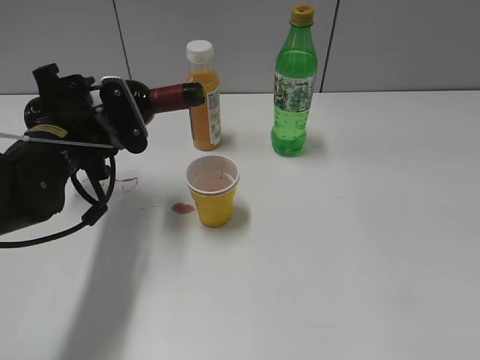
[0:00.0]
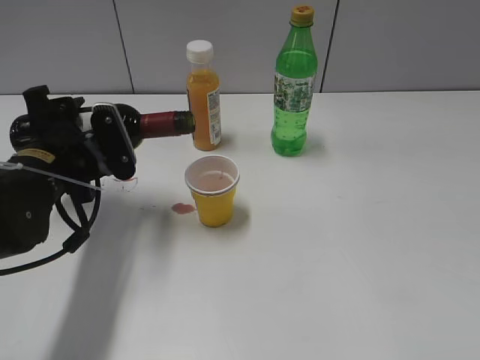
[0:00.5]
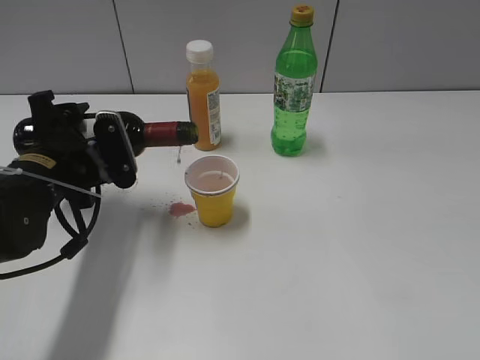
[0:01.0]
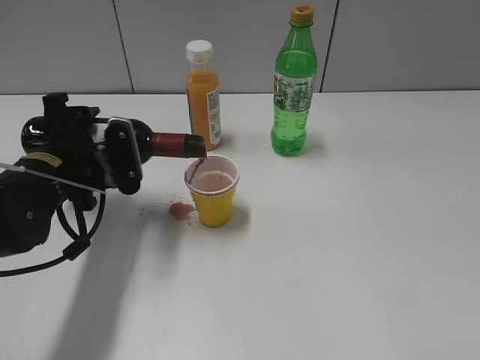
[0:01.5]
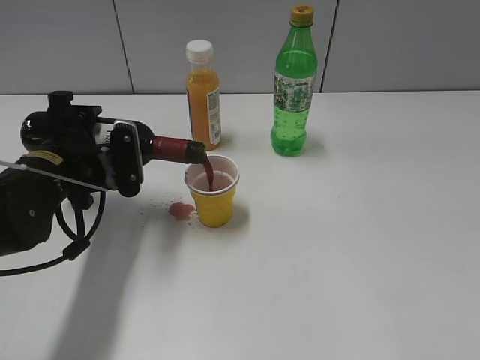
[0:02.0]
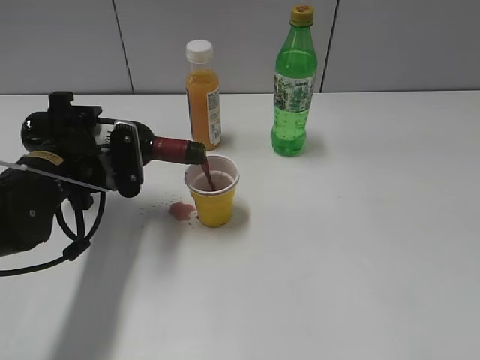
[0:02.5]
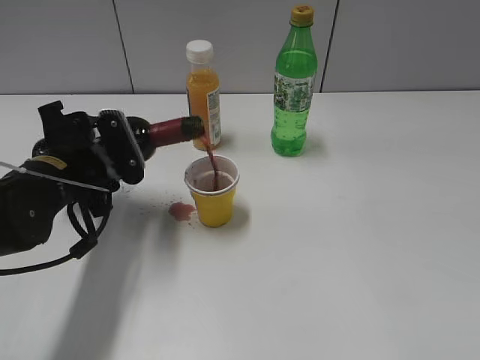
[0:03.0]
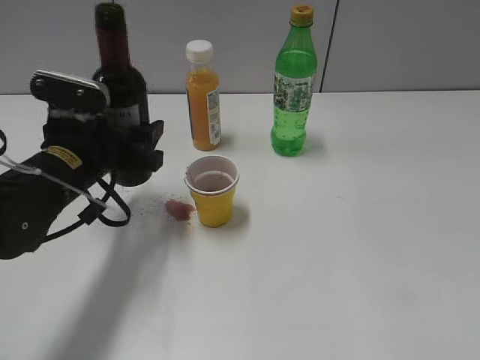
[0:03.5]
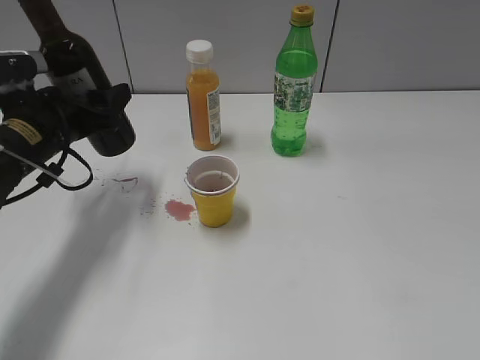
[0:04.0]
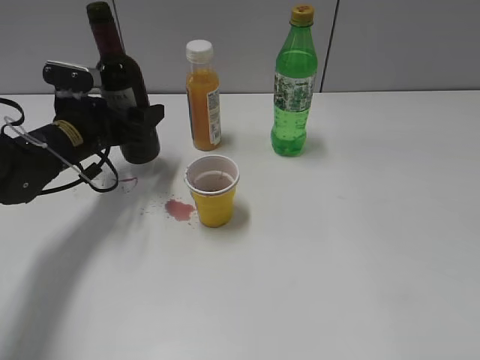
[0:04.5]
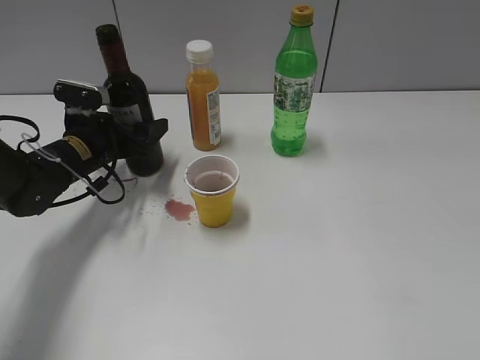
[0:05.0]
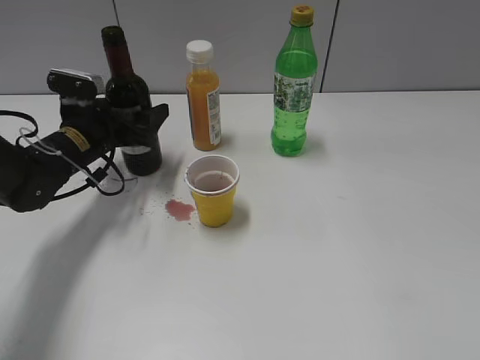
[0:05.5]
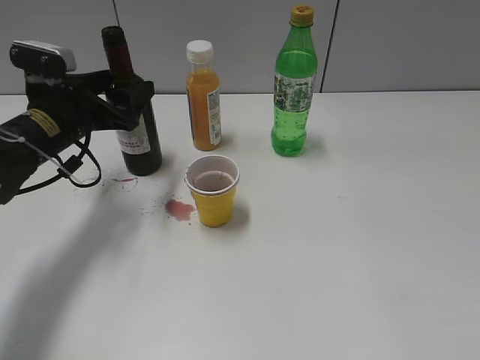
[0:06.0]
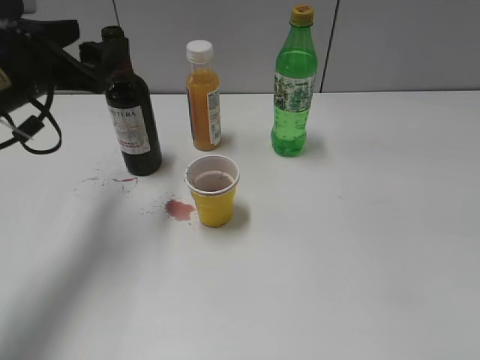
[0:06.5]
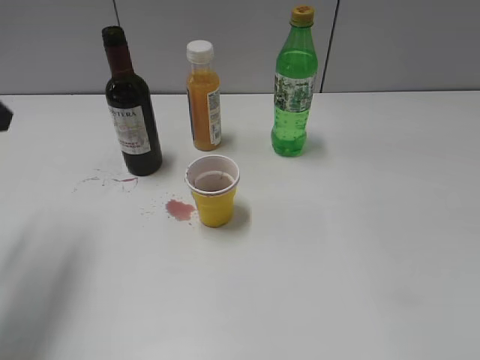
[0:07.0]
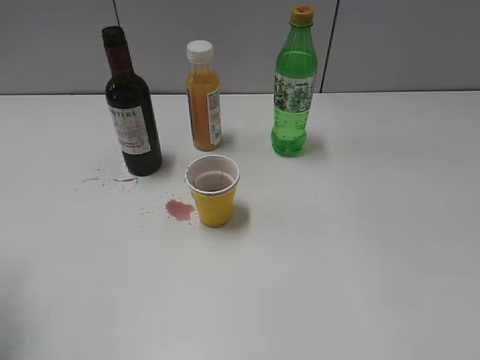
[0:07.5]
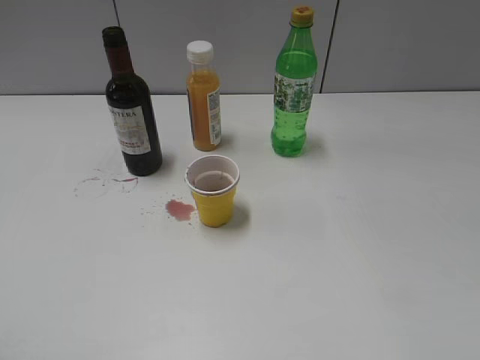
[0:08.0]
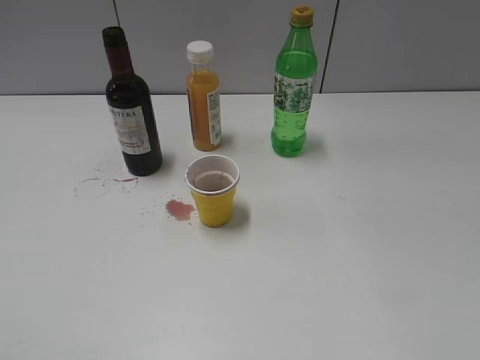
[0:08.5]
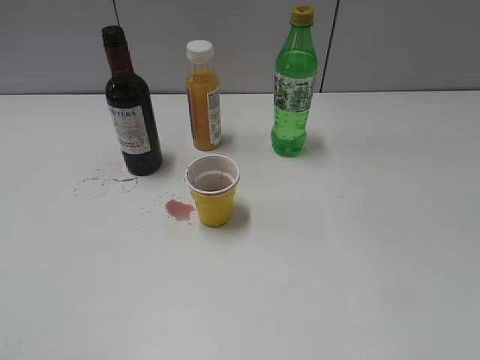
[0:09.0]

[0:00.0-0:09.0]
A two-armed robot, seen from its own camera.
Step, 0:00.0 to 0:03.0: Pour the red wine from bottle to cup with left gripper.
Step, 0:03.5 to 0:06.0: Place the red wine bottle on the table with left gripper.
0:00.0 to 0:02.0: The grippers make only small movements.
0:02.0 to 0:04.5: The left gripper is displaced forward by approximately 10 cm.
0:04.5 to 0:07.0: The left gripper is displaced upward and backward by approximately 20 cm.
0:07.0 to 0:09.0: The left gripper is displaced backward by approximately 25 cm.

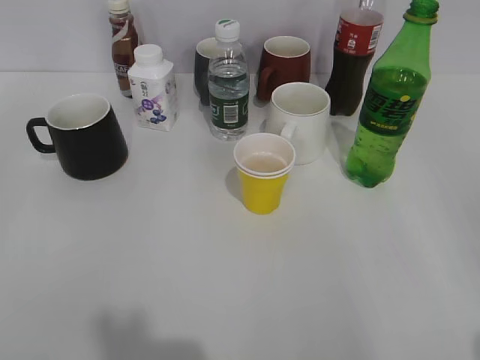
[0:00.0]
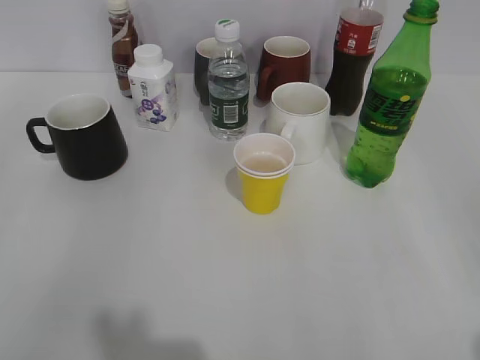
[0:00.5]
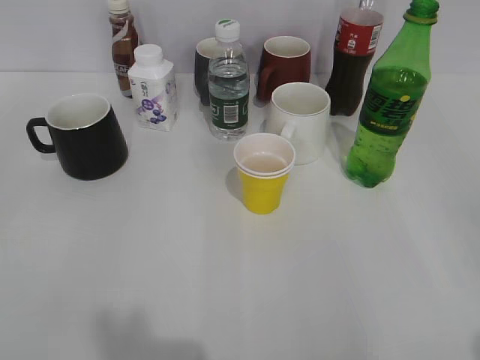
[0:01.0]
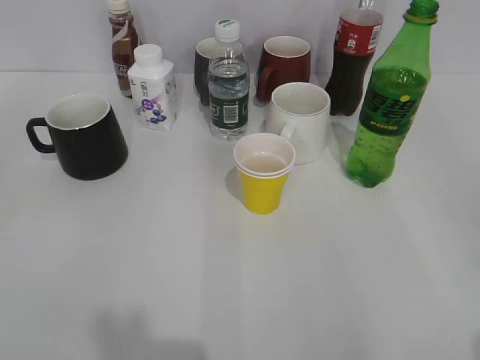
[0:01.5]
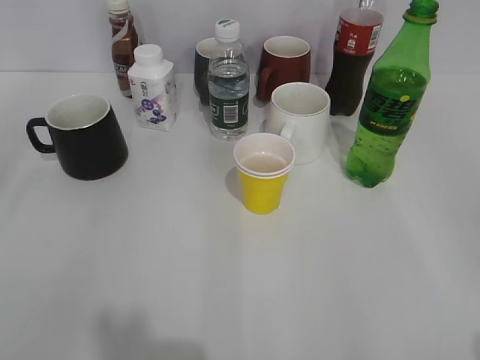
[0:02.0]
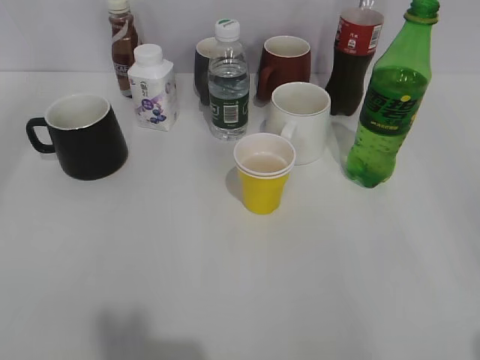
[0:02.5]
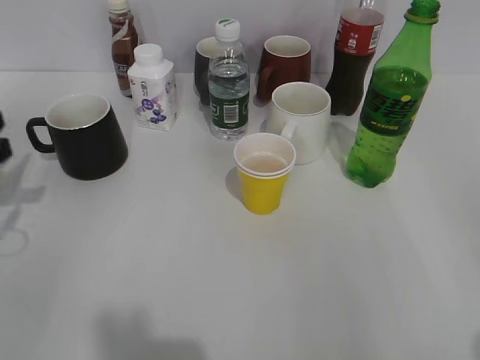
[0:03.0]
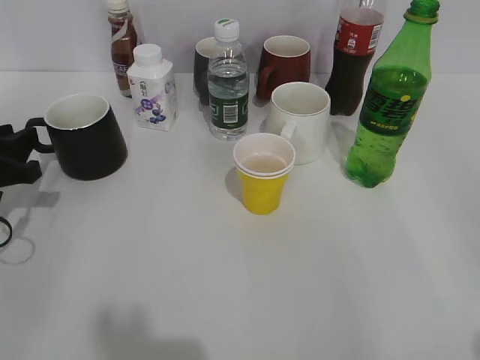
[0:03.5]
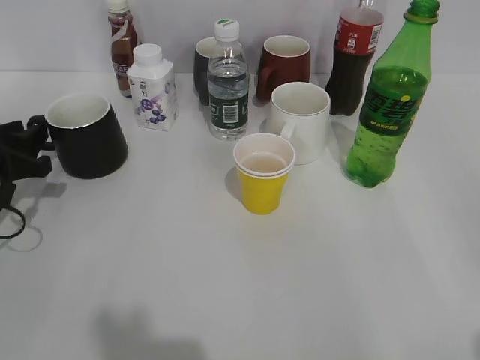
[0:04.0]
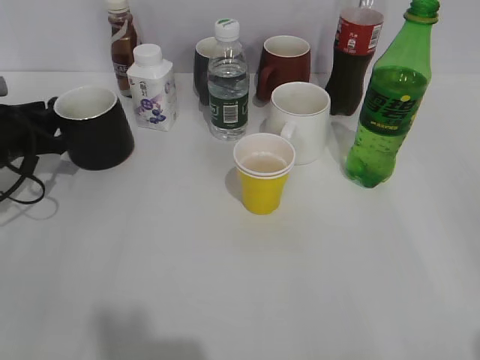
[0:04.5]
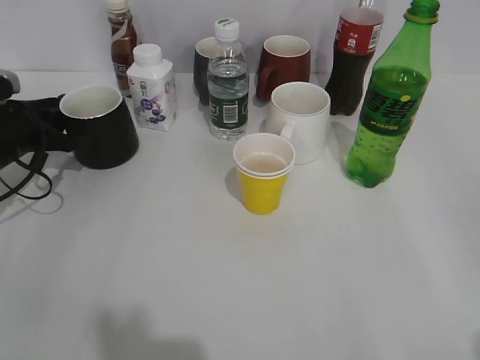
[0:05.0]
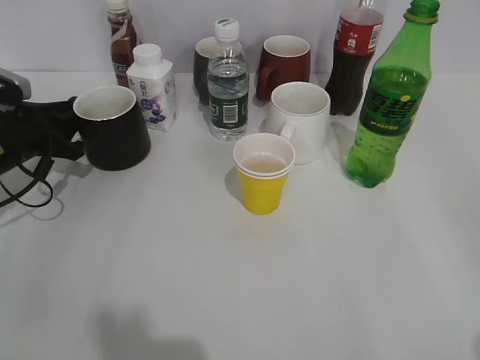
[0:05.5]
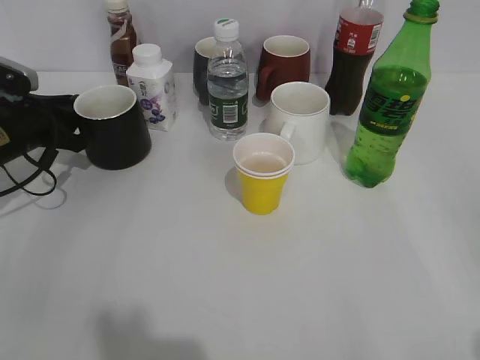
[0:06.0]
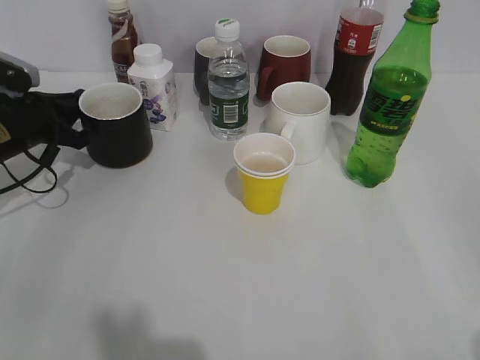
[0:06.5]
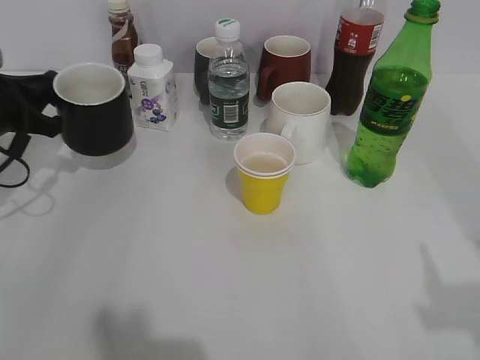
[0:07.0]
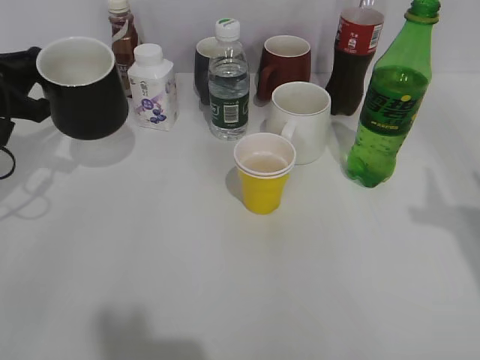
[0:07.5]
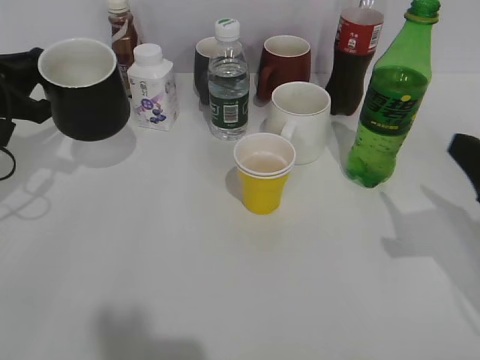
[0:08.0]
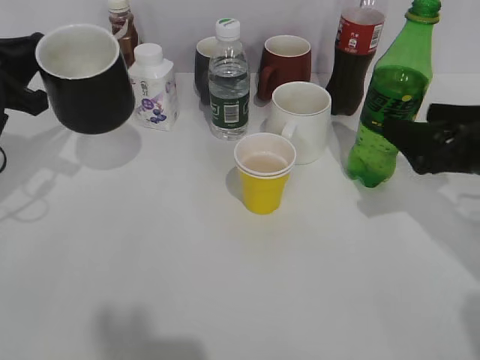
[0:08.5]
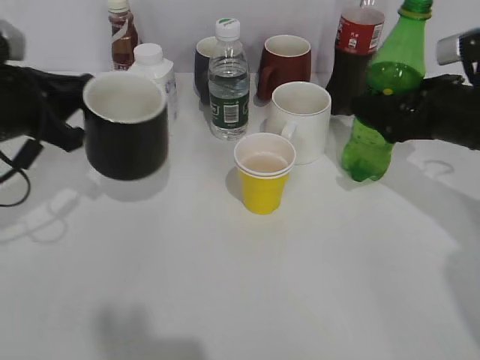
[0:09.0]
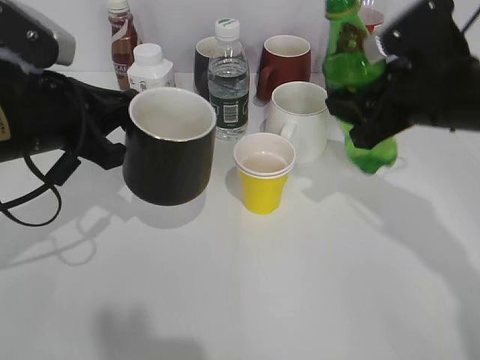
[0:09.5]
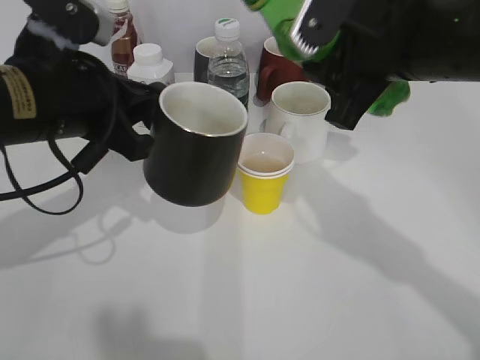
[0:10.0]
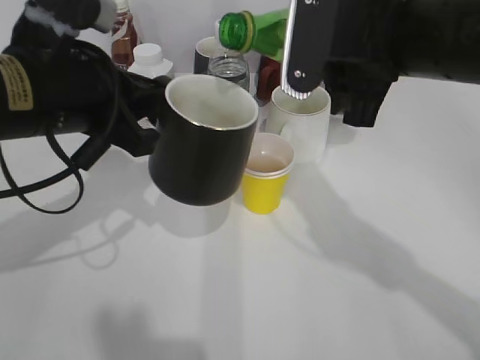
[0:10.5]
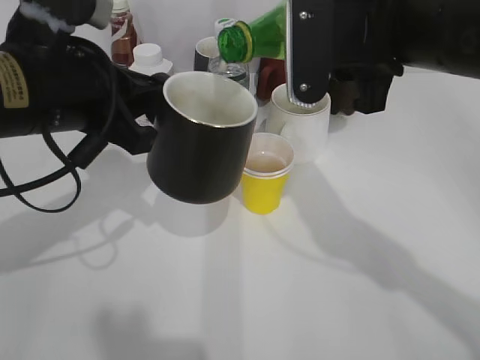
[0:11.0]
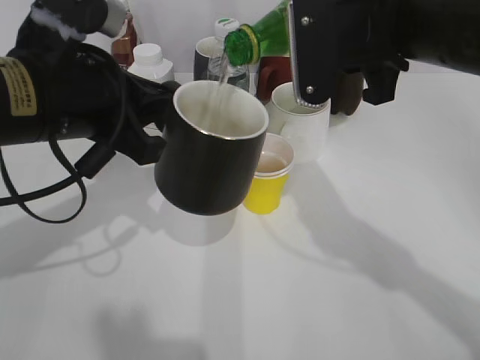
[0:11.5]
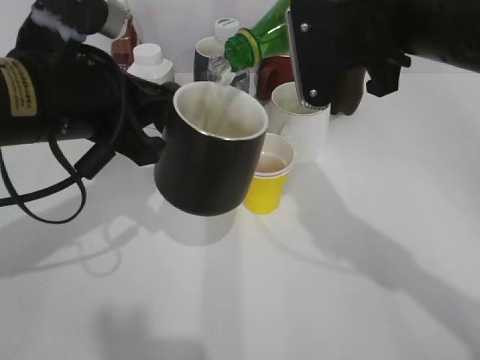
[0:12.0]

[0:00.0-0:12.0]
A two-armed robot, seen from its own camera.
Step, 0:02.0 to 0:04.5: Grasp the black cup with left gripper.
Step, 0:05.0 to 0:07.5: Lift the black cup with left gripper.
Step, 0:08.0 to 0:09.0: Grasp the bottle with sprite with right gripper.
0:02.0 to 0:04.0: The left gripper goes roughly 35 cm forward and downward.
0:04.0 to 0:06.0: The left gripper travels forward by some 10 cm.
0:06.0 to 0:08.0: The right gripper is displaced forward and downward by roughly 20 cm. The left gripper travels upward and backward by roughly 10 cm, and closes its fingers.
0:08.0 to 0:10.0: The right gripper travels to the left, forward and upward by some 20 cm, and opens, then closes once more; the left gripper is displaced to the right and backward by approximately 15 cm.

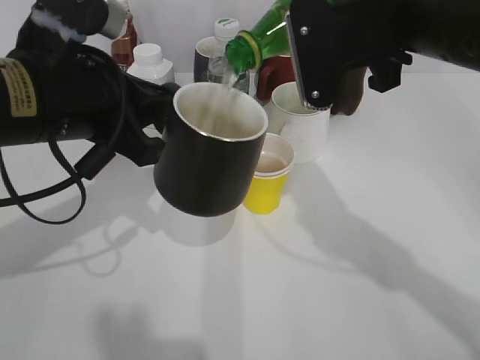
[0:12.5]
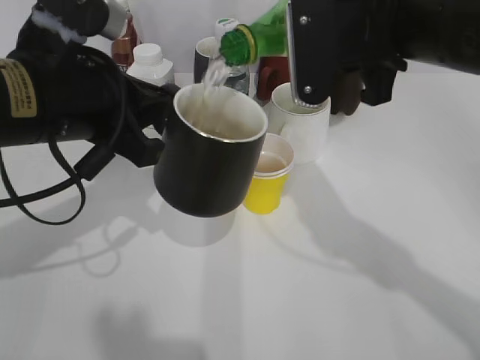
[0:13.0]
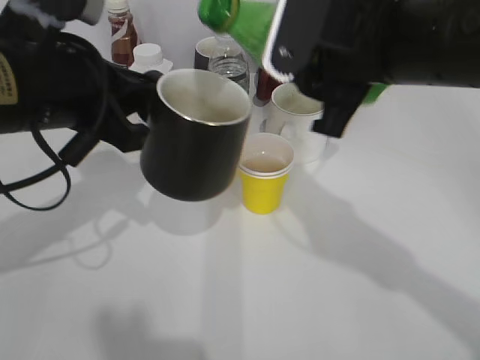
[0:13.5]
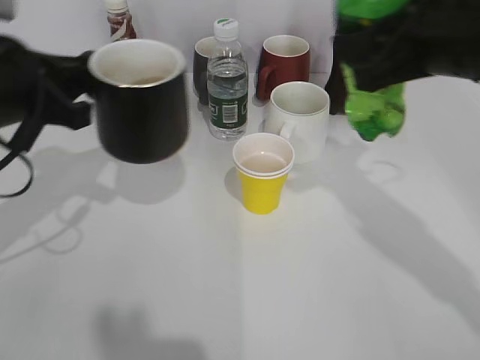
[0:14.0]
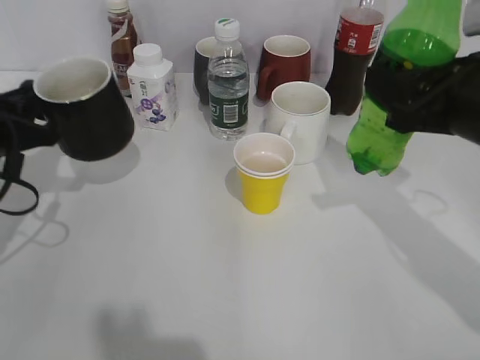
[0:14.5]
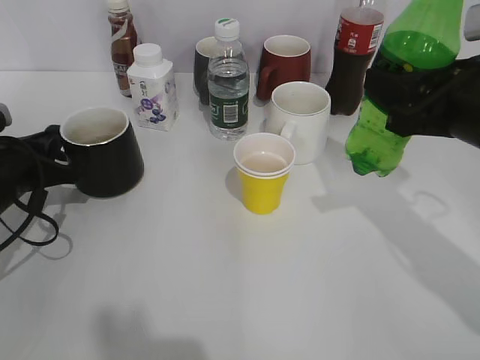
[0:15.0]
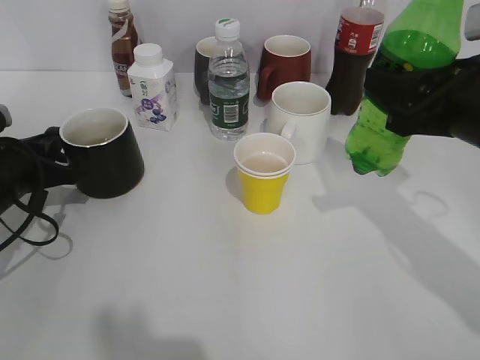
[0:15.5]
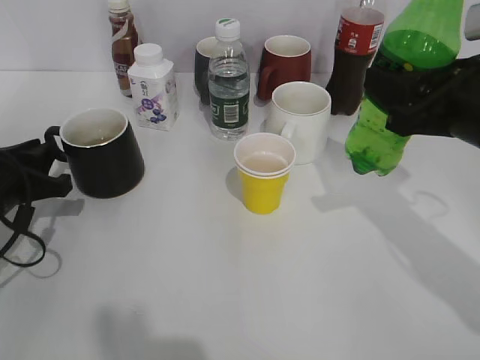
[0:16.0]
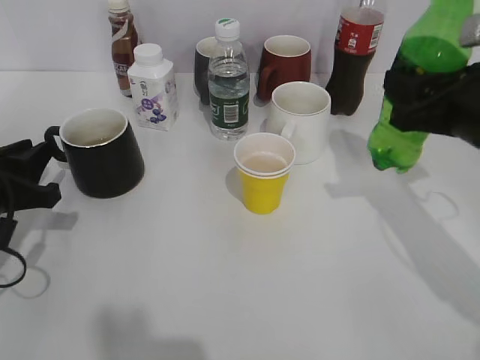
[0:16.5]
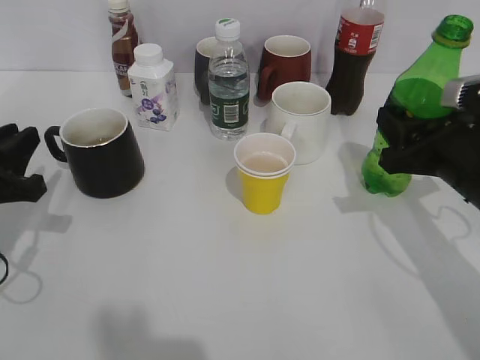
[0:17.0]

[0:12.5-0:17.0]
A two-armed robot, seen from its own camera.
Step, 0:14.0 to 0:15.5: Place the black cup on the table with left gripper.
0:12.5 to 0:14.5: The right gripper heads to the right and downward, covering roughly 10 cm; the left gripper travels to the left and downward by roughly 15 cm.
0:14.5 to 0:17.0: The right gripper goes some 5 cm downward. The left gripper shifts by approximately 5 cm, and opens its fingers.
